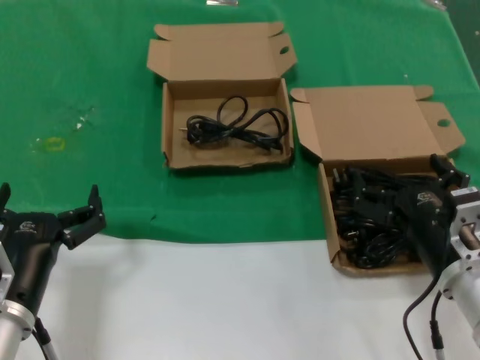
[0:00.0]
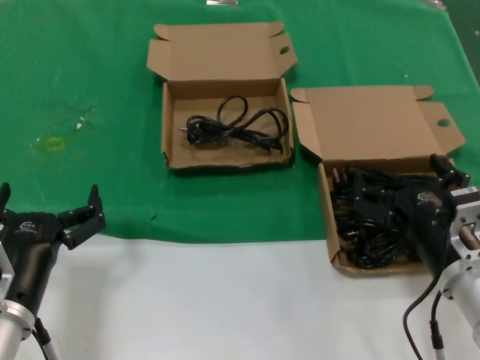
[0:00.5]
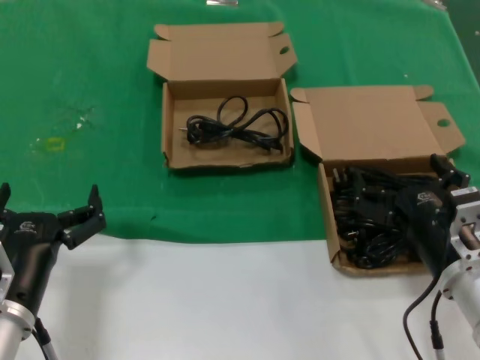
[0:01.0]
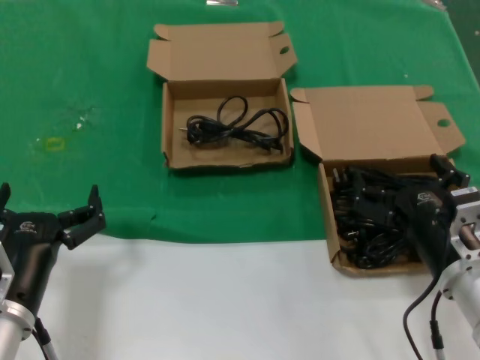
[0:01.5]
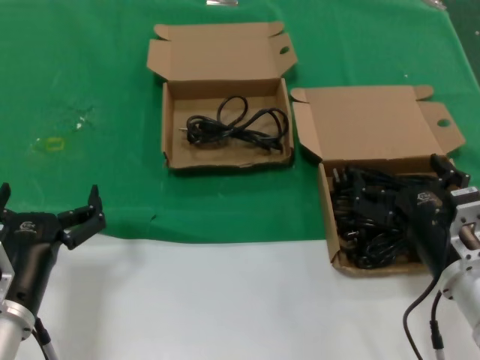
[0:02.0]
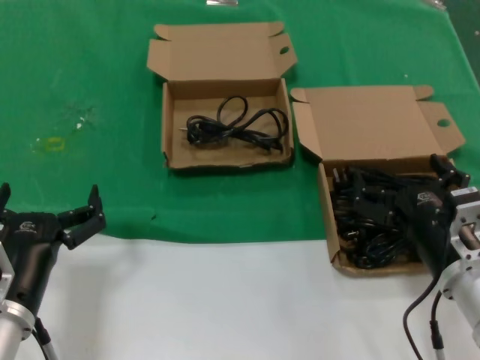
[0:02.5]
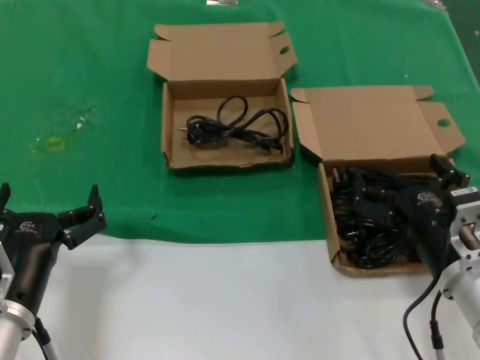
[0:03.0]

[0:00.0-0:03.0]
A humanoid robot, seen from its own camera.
Task of the whole recording: take the parts from the box containing them and put them into an empty box.
0.0 to 3.0 s: Neither hand changes place.

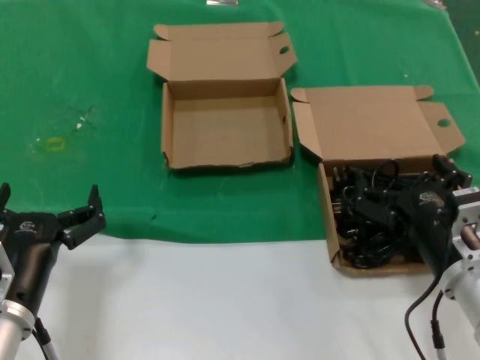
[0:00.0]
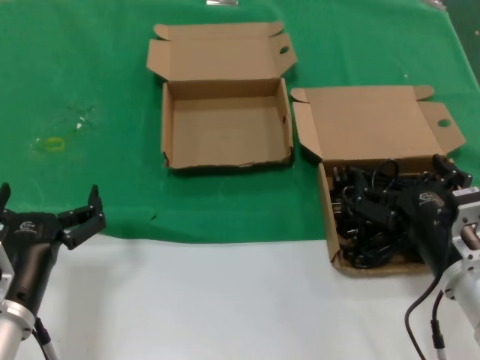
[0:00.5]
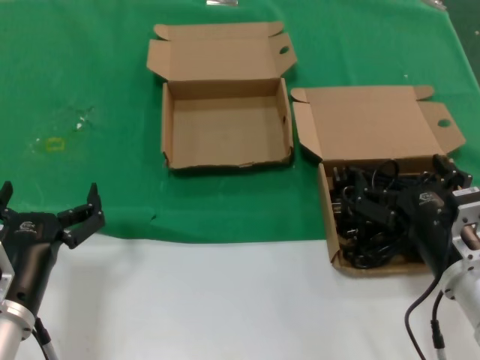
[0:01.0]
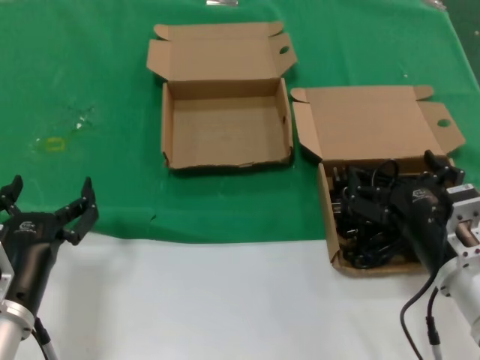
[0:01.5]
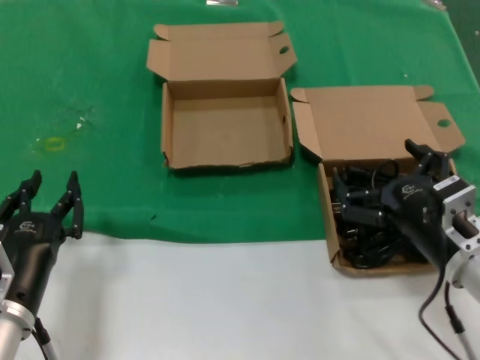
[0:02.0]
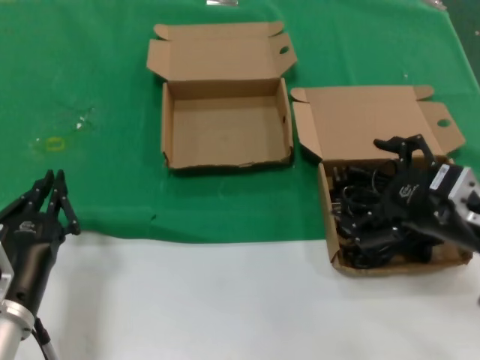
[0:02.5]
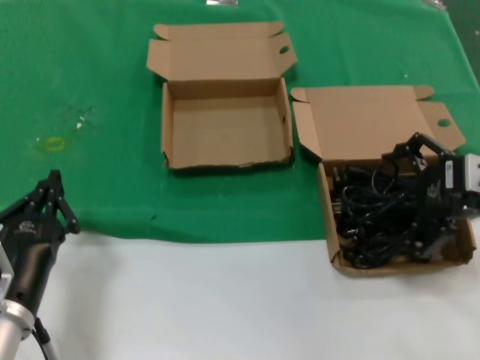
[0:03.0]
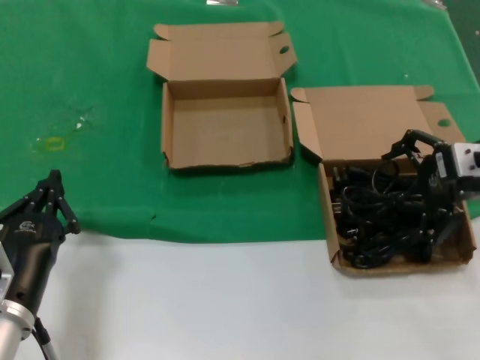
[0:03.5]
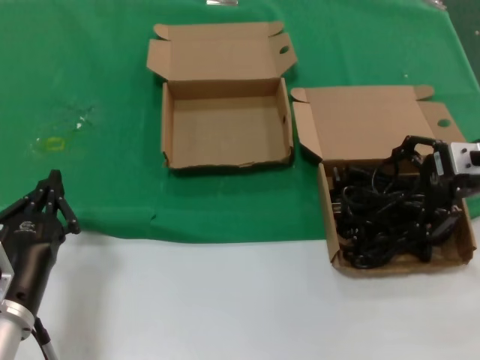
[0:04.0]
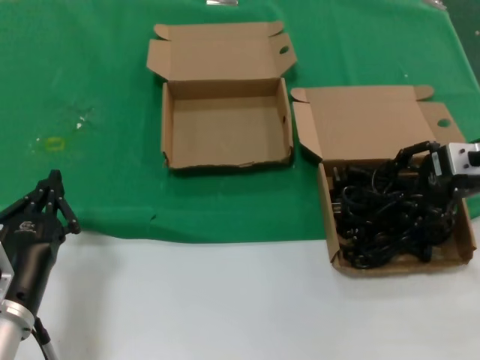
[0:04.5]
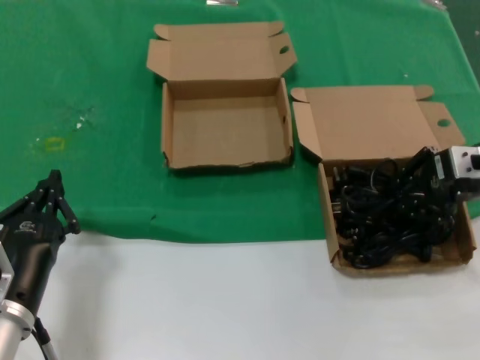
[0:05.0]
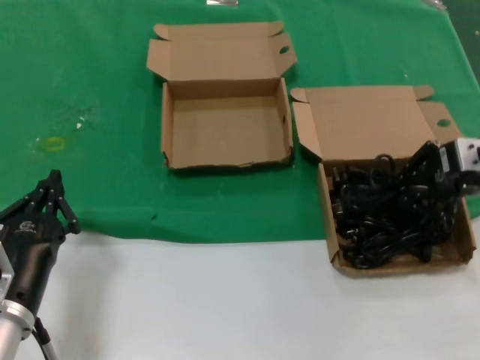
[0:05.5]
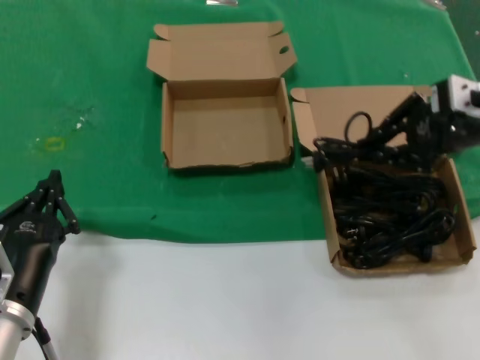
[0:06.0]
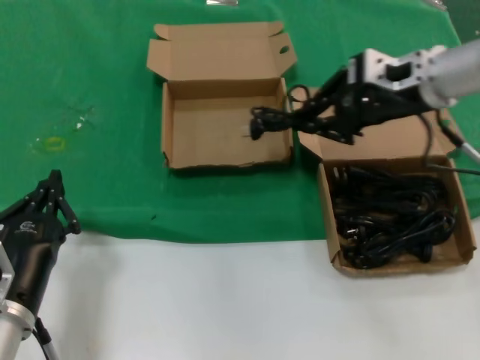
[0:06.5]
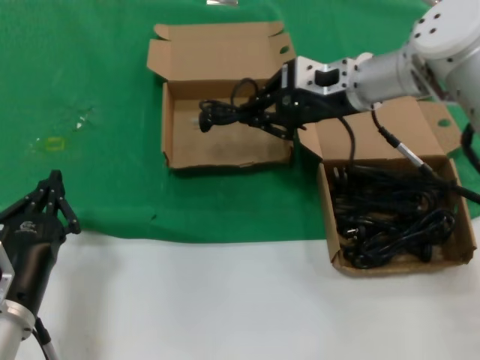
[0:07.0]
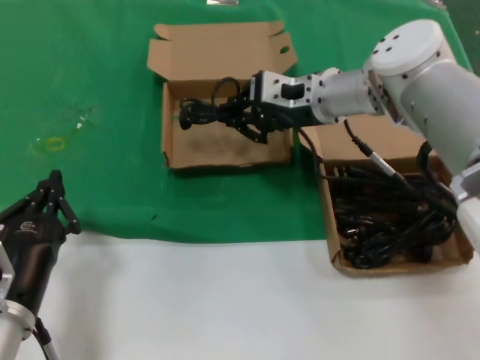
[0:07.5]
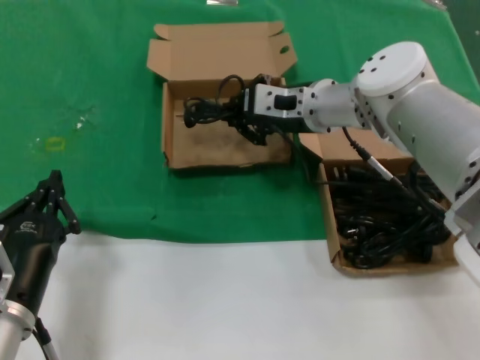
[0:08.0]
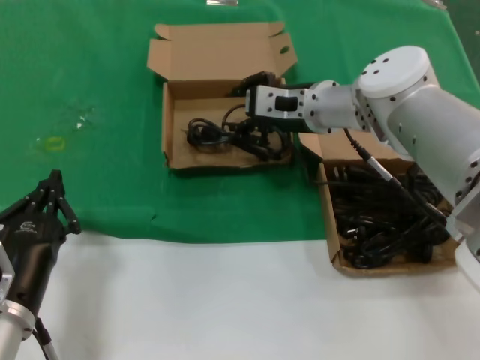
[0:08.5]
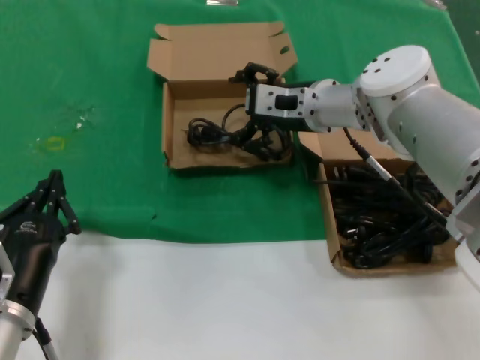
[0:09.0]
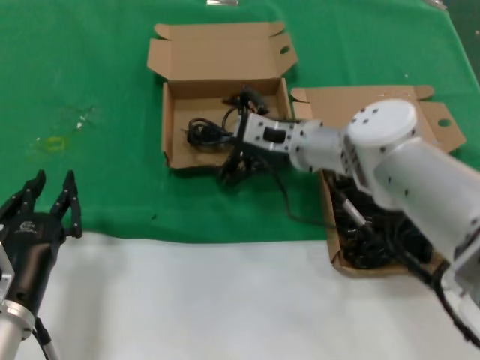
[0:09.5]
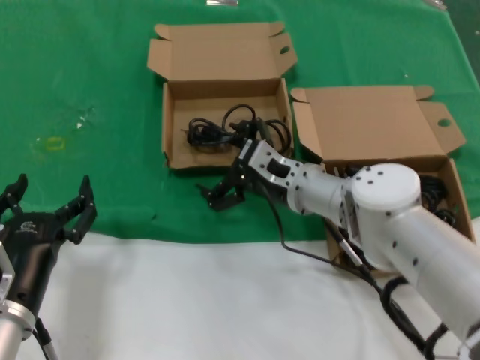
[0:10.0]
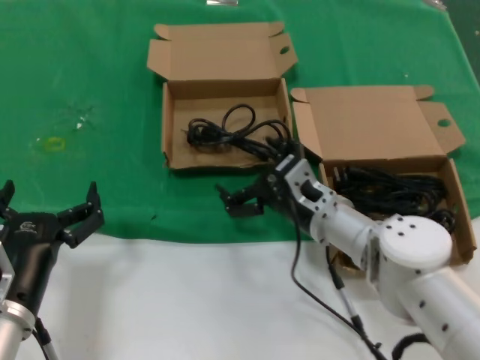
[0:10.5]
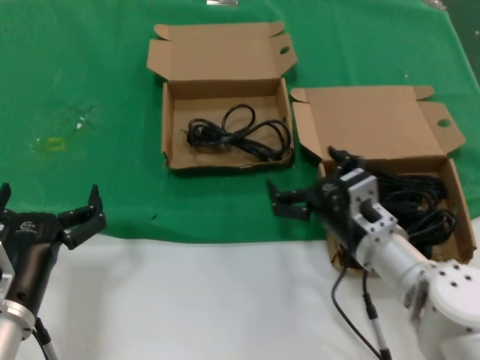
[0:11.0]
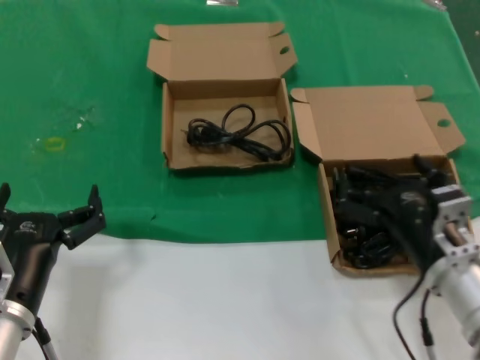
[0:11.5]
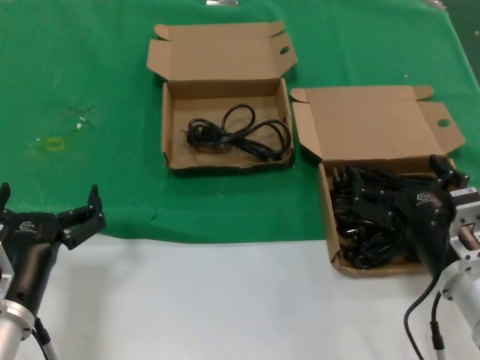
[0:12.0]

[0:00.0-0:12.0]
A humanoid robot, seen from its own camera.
Task of the whole recording: take the parts from the box containing them and put them into an empty box.
Step, 0.0 to 5.0 s: Grasp the data cable.
Step, 5.5 to 9.0 s: Place the data cable in the another box.
0.0 to 2.0 s: The hands stay close to where they were, moving slightly.
2.0 to 4.0 s: The right hand moves forward, upward and to the right, approximately 20 cm.
4.0 to 6.0 s: The right hand shifts approximately 5 cm upward.
6.0 to 8.0 s: The right hand travels to the left, forward and downward by approximately 25 cm.
8.0 to 10.0 s: The right hand shifts some 15 cm downward and backward.
10.0 to 12.0 s: The right hand heads backward and to the right, covering some 25 cm.

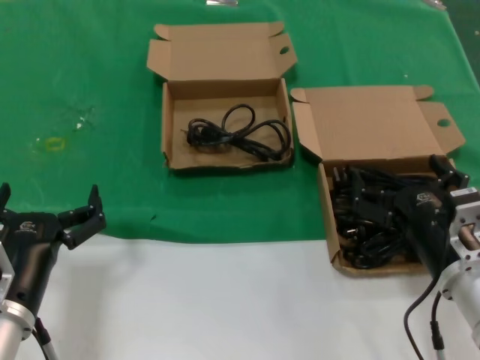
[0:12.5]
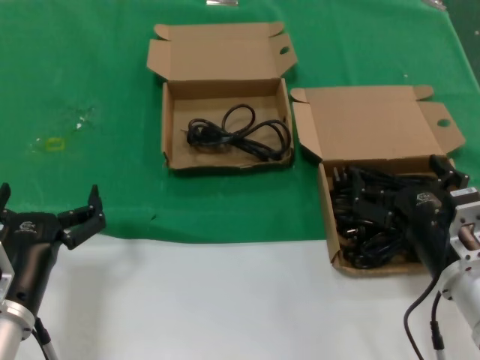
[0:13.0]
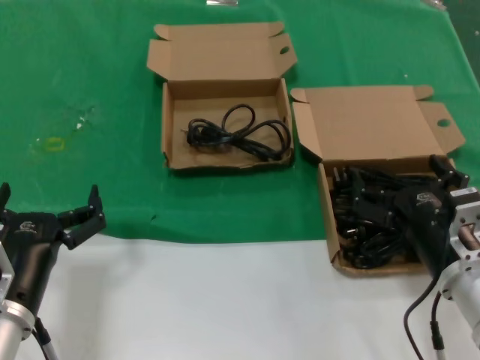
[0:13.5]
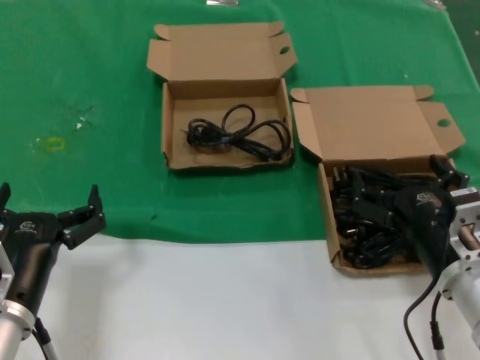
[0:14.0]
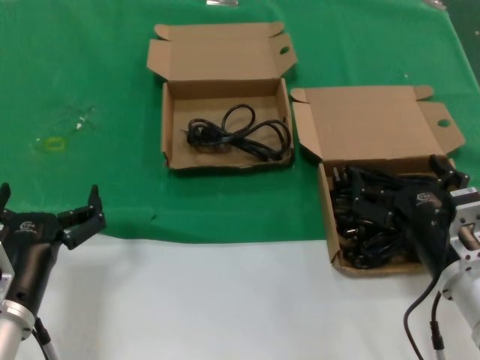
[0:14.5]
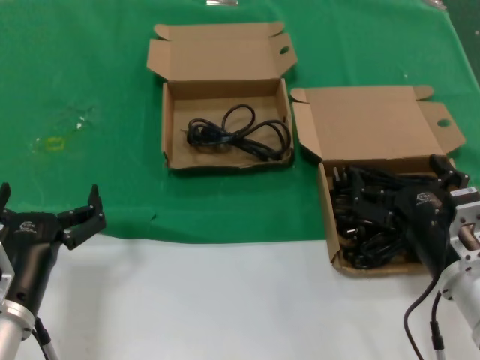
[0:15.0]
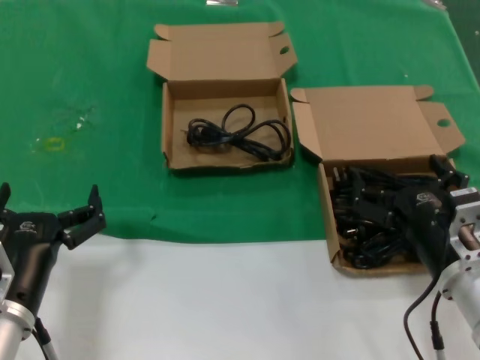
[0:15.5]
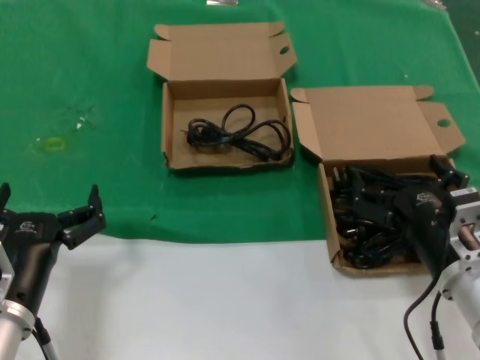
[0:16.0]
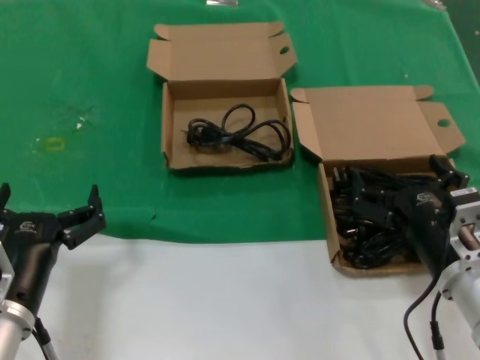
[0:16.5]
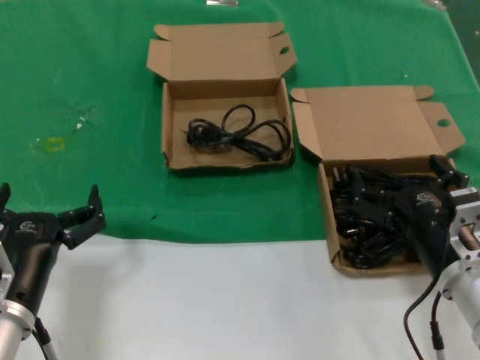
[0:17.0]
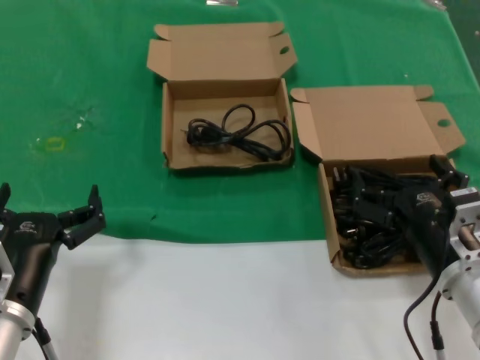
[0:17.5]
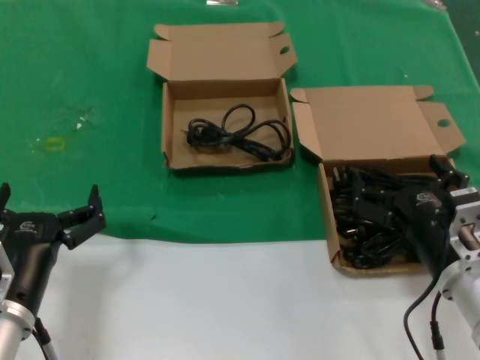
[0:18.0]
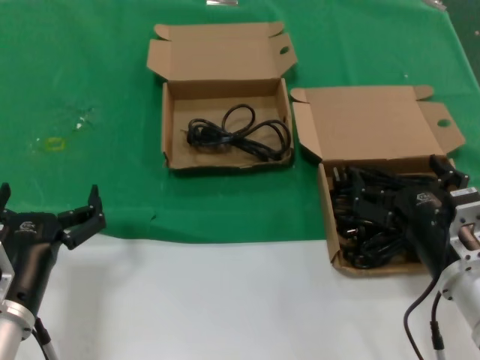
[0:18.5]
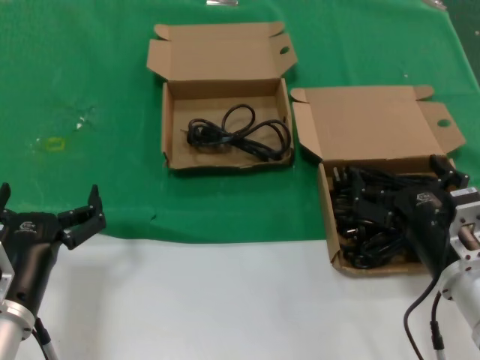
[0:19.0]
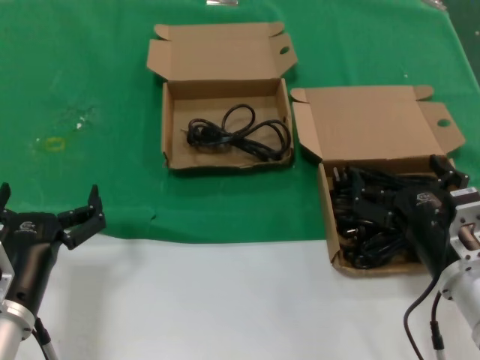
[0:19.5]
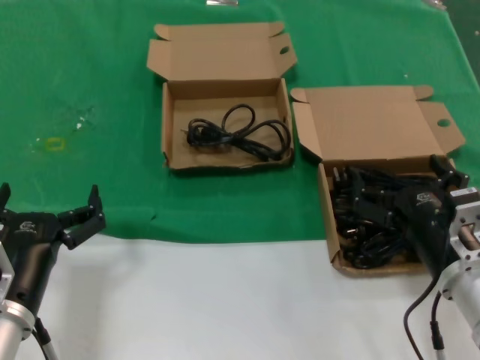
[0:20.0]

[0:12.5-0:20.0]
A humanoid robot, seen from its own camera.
Task of the whole recording: take the parts from the box containing them and put them into an empty box.
12.5 to 20.0 s: Both hands stay put.

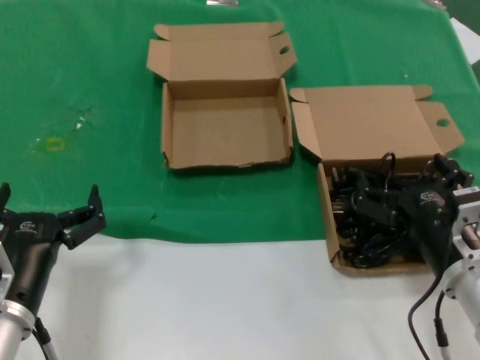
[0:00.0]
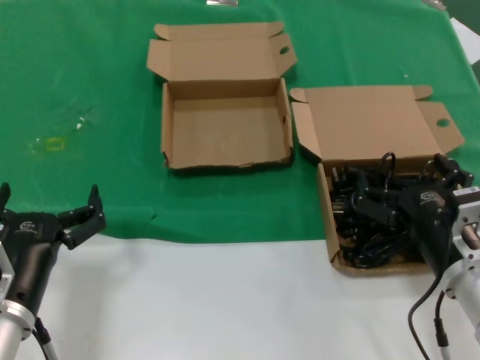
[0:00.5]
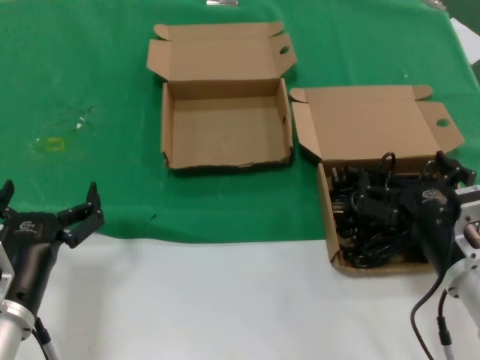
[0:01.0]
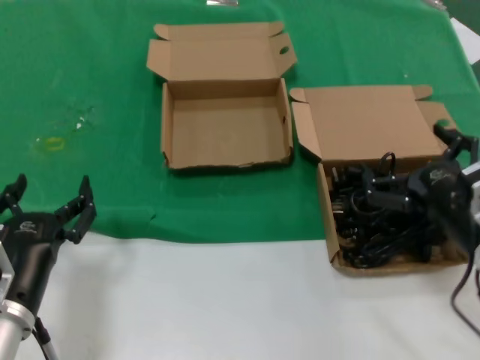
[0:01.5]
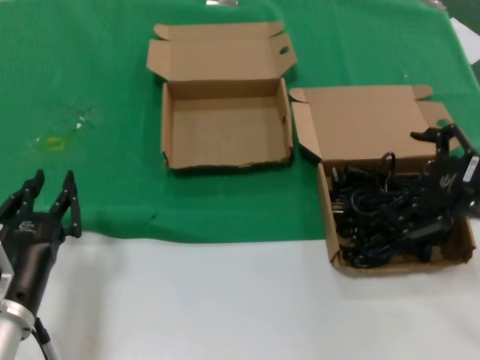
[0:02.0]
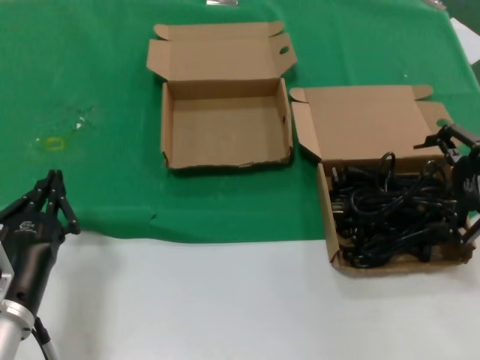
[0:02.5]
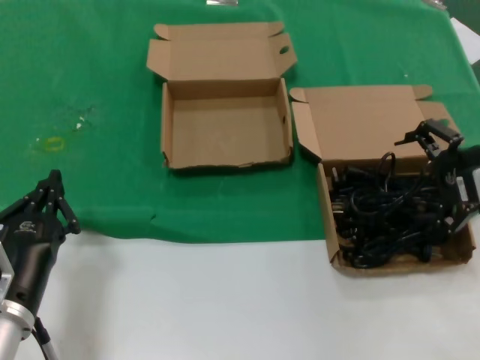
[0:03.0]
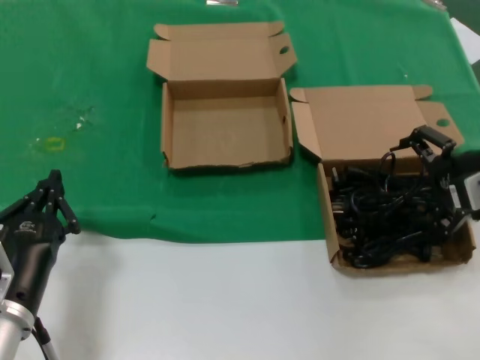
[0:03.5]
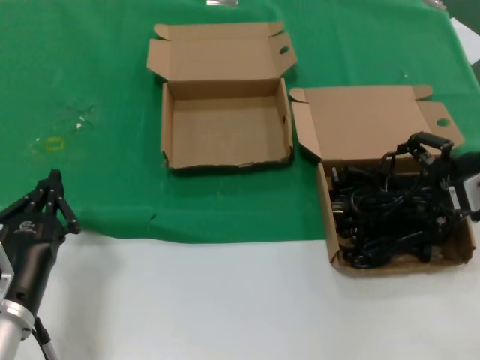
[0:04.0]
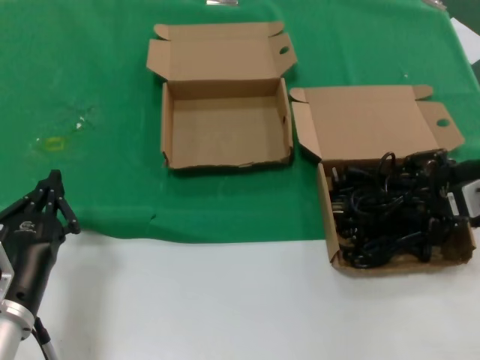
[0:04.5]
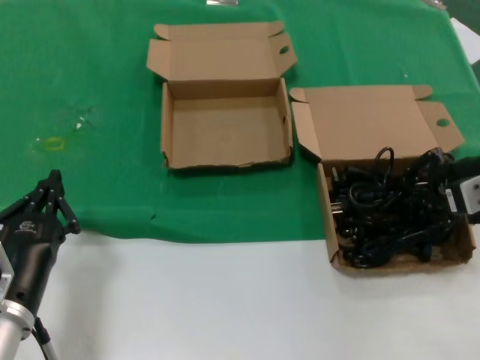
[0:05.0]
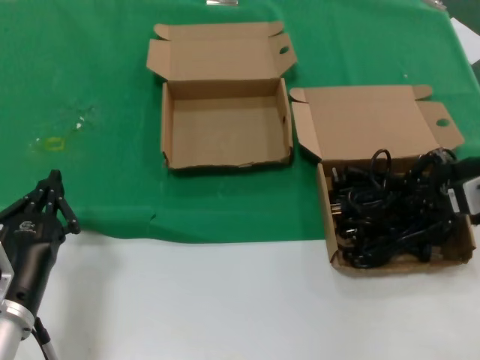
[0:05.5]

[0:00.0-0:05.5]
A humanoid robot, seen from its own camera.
Task of the whole recording: take the parts from the box containing them and put them into an empty box.
Step, 0.0 to 4.5 s: Grasp the data cable.
0.0 to 2.0 s: The right hand travels upward and to the right by approximately 15 cm.
2.0 to 3.5 s: The right hand is displaced forward by some 10 cm.
3.5 to 5.5 s: Both hands stay about where they are.
